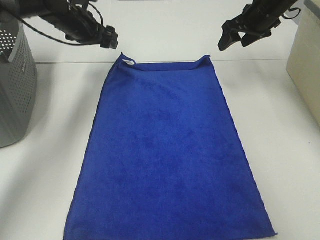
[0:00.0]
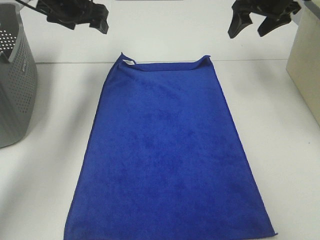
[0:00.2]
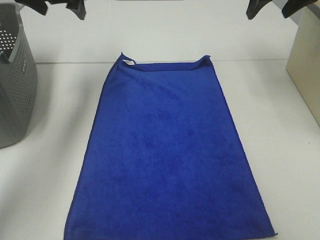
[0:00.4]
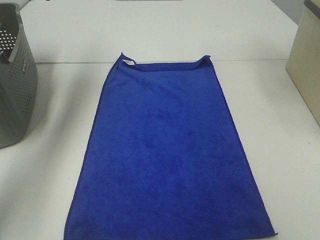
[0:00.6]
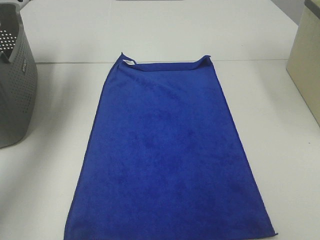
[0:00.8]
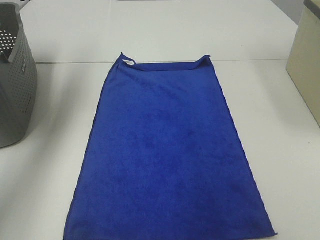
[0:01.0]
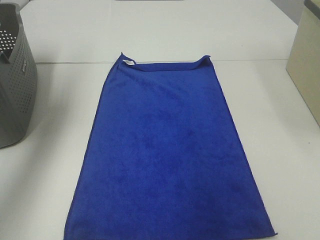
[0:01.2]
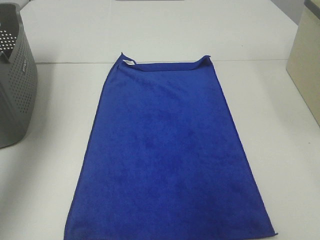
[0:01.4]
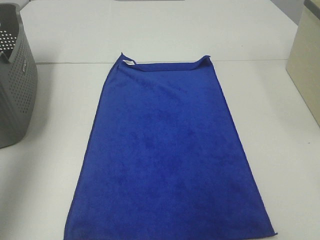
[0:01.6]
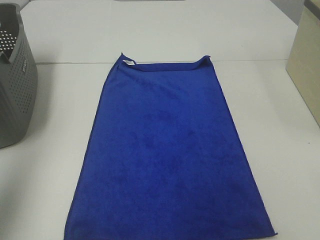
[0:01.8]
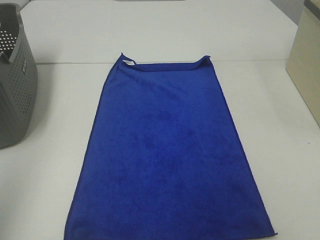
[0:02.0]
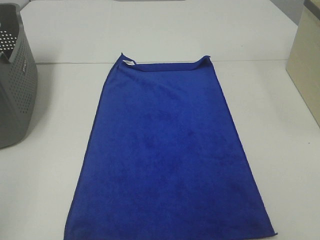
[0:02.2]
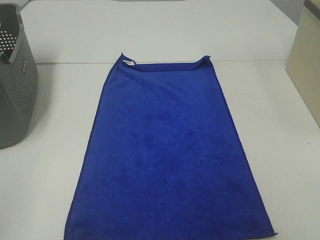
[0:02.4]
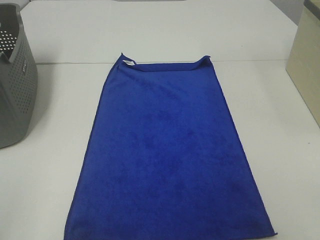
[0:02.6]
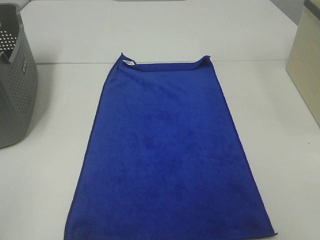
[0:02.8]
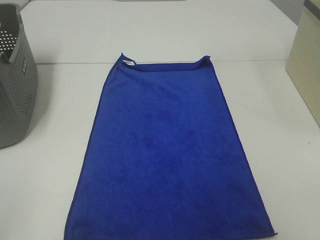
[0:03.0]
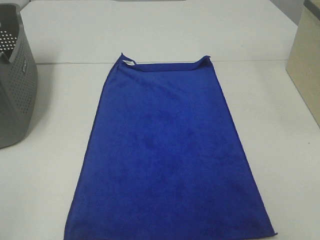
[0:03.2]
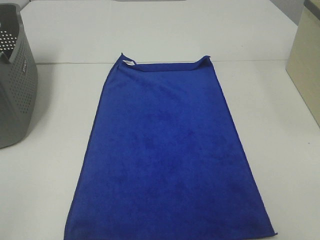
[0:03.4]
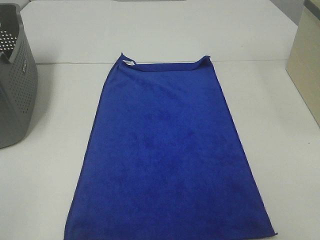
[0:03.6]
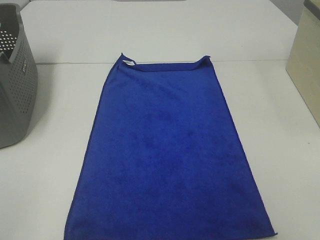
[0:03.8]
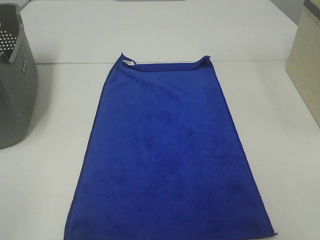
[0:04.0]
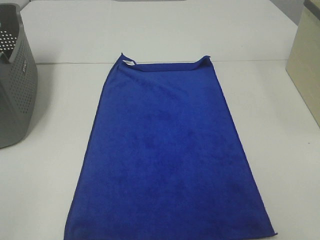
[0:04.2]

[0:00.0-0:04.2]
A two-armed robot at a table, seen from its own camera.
Task of the whole recording: Remove the towel and place it.
0.0 to 1.4 s: The right gripper shifts about 40 cm backward and upward. The left gripper is displaced backward, upward and to the left by some 35 cm.
1.4 to 2.8 s: The left gripper travels backward by approximately 30 cm.

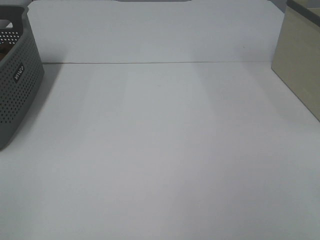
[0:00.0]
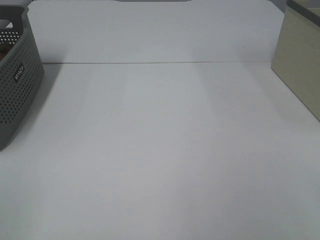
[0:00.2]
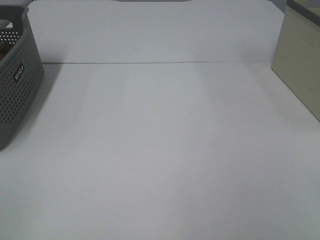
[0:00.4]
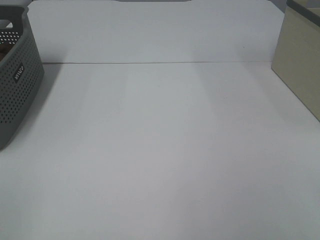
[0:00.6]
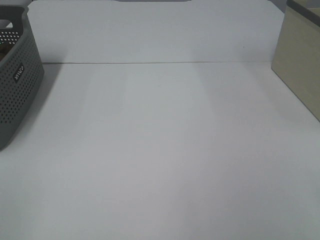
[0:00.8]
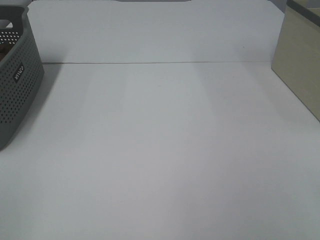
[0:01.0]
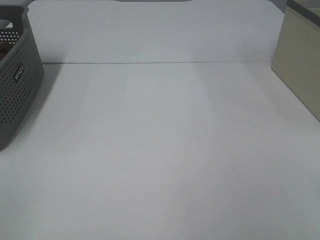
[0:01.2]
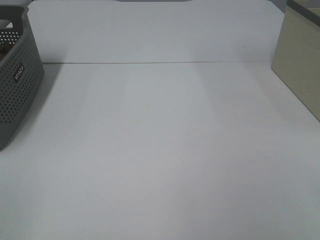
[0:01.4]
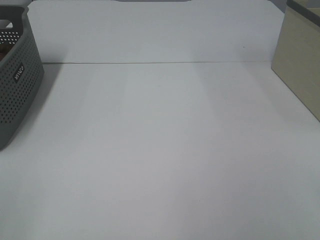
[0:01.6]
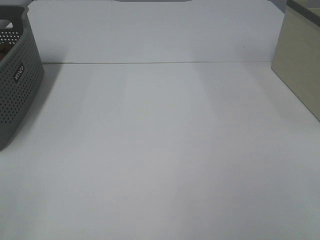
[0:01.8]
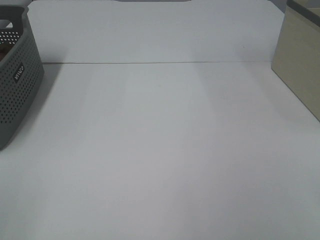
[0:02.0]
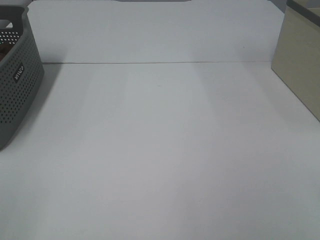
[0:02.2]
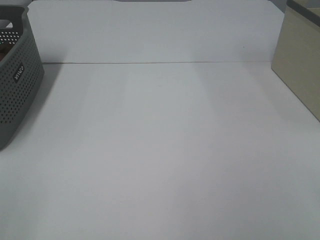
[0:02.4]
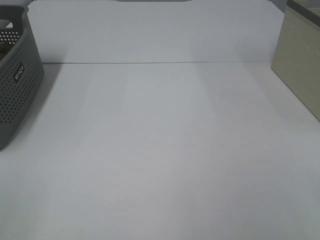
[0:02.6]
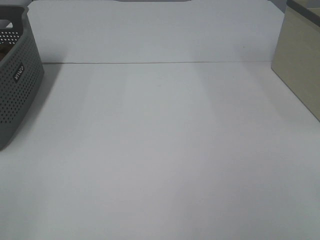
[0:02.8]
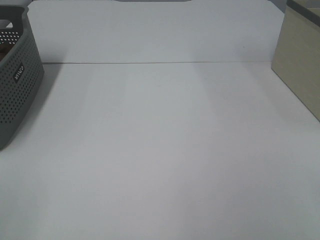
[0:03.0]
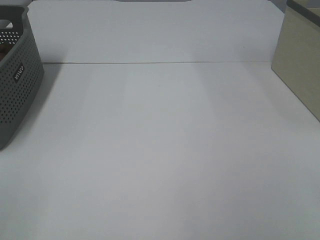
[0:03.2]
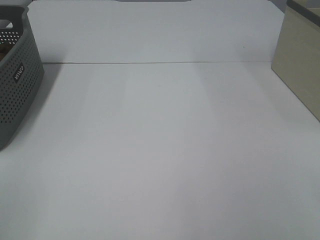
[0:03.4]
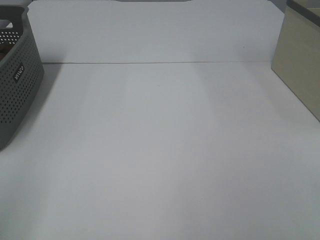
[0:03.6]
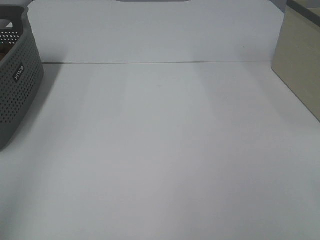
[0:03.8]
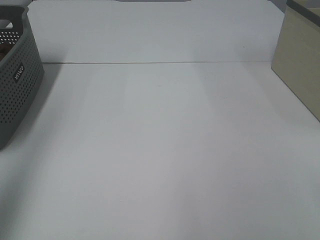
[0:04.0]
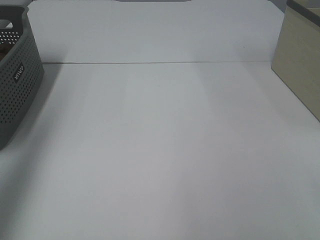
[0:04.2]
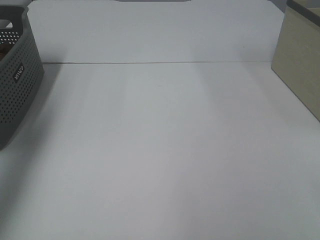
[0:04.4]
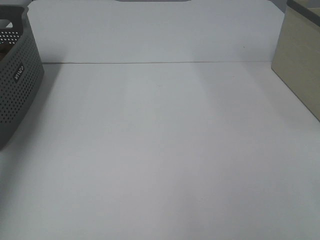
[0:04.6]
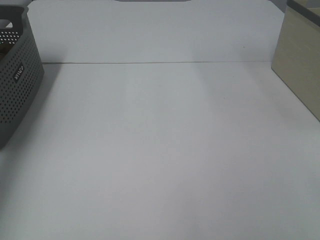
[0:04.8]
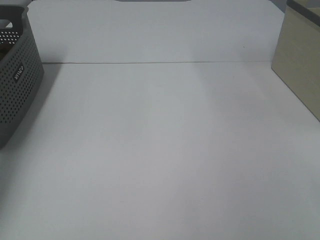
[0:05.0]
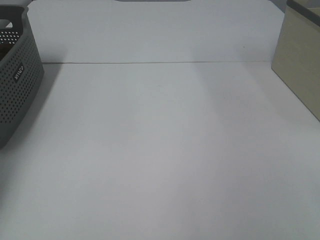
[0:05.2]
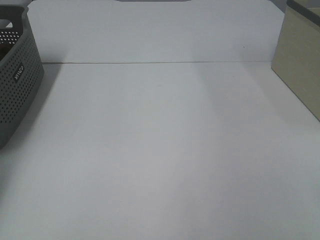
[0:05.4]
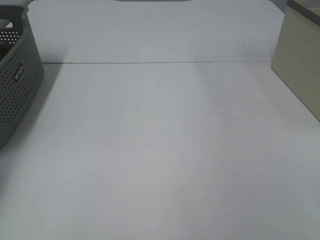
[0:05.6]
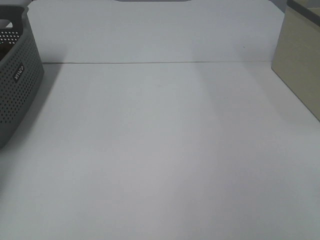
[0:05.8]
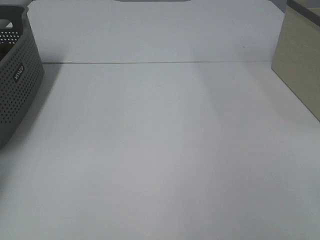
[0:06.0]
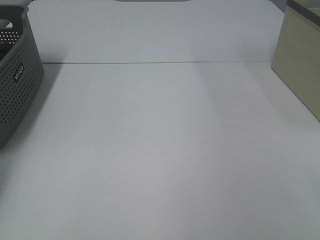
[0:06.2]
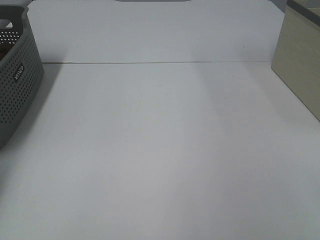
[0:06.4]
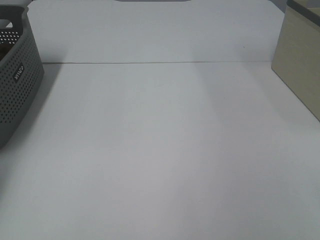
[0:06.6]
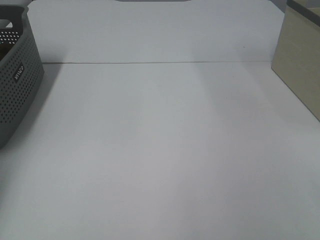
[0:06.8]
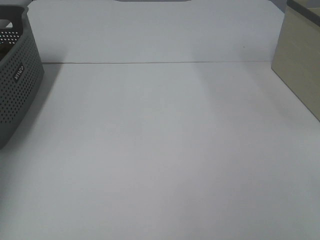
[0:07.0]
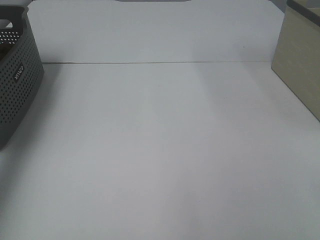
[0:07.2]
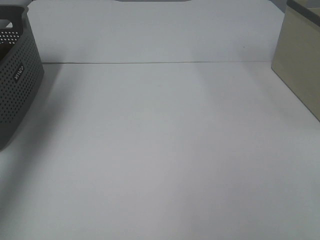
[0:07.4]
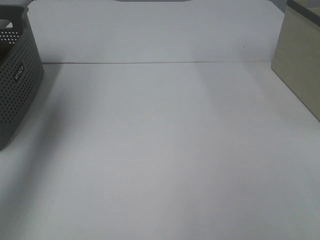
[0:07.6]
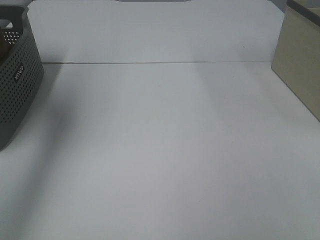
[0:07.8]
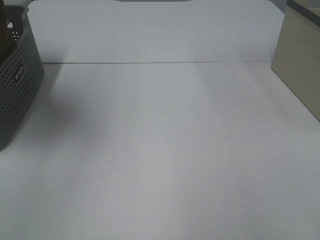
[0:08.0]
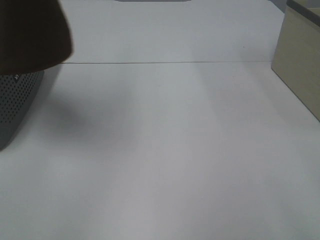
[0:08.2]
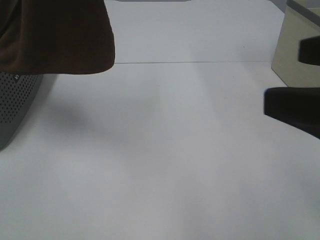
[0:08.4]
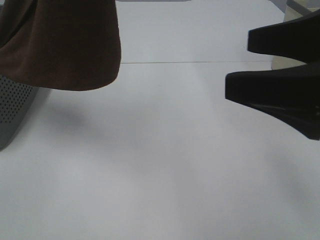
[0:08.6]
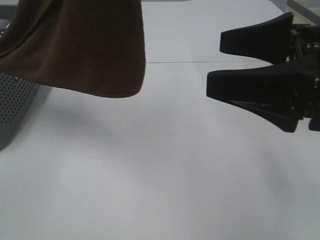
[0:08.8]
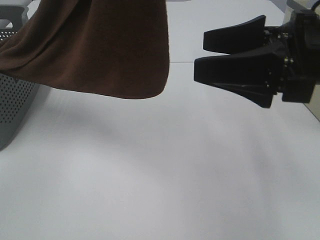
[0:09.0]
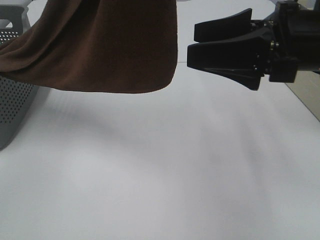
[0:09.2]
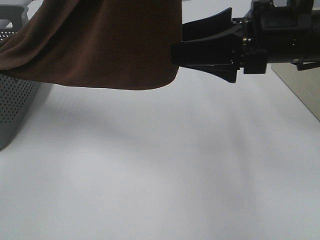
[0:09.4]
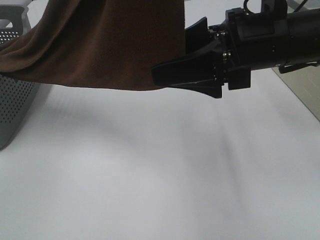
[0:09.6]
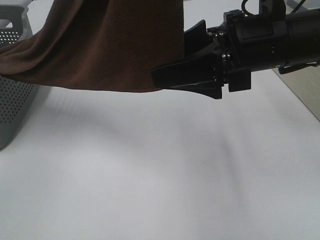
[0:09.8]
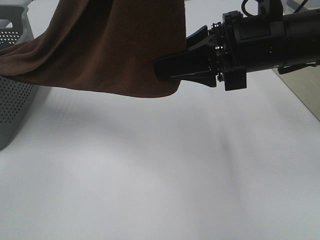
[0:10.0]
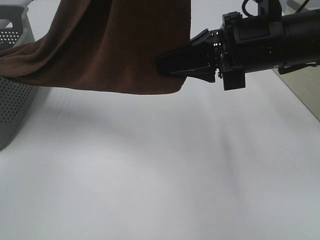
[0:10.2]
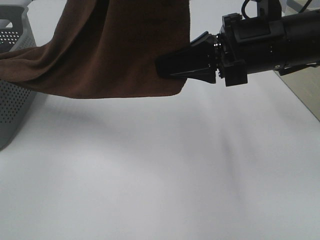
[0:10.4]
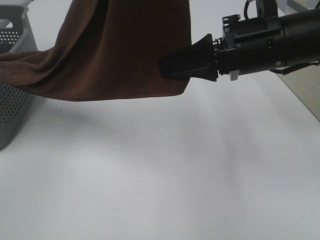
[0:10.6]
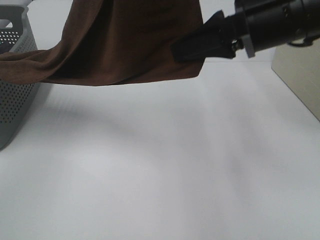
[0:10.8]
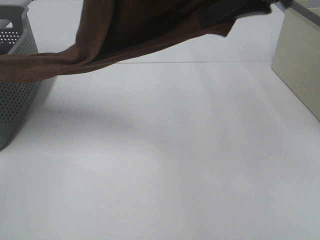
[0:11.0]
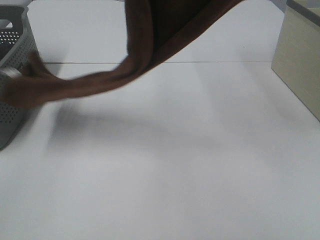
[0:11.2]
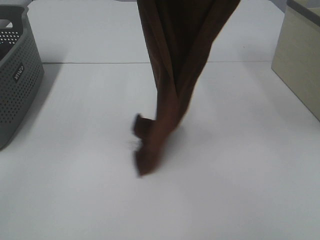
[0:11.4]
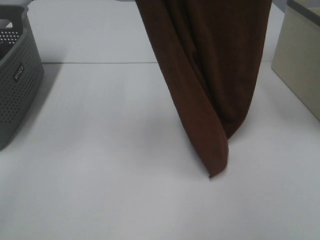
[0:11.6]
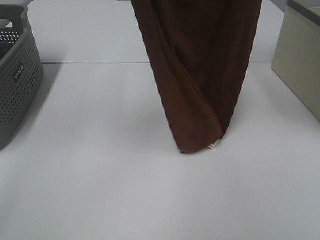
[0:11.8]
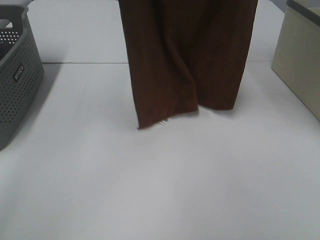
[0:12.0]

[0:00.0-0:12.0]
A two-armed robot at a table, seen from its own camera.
Task of the whole recording: Remove the towel and place it.
Step, 7.4 to 10.6 s: Right hand: grab a corner of the brown towel and straighten it.
0.0 to 3.0 s: Neither gripper changes place.
3.0 to 4.4 s: The left gripper moves forward, about 30 cm.
4.4 to 6.0 s: The left gripper heads forward, downward and to the left, covering some 25 cm, and closes.
6.0 to 7.6 s: The left gripper heads upward, to the right and backward, covering approximately 30 cm.
7.6 to 9.0 s: The right gripper travels forward and to the left by about 25 cm. The left gripper heads to the right and backward, covering approximately 25 cm.
9.0 to 10.4 s: The right gripper travels to the left by roughly 5 cm, and closes its fingers.
10.4 to 12.0 s: The right gripper goes about 30 cm upward; the left gripper moves forward, approximately 15 cm.

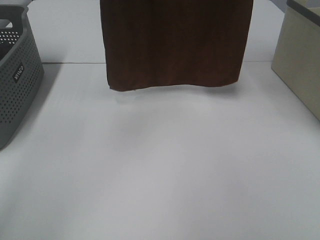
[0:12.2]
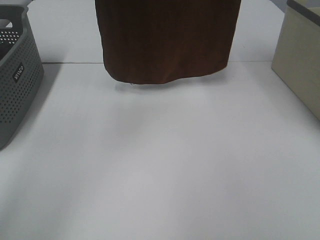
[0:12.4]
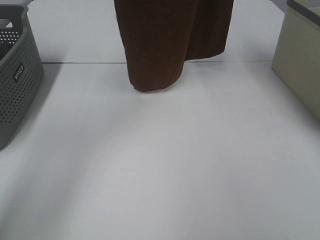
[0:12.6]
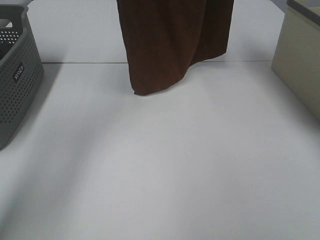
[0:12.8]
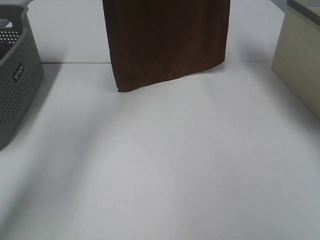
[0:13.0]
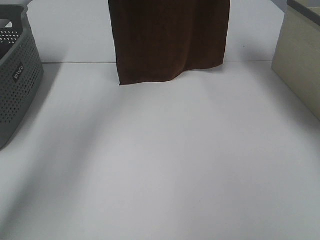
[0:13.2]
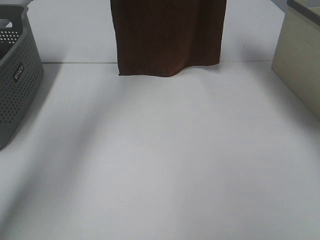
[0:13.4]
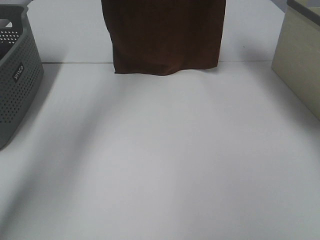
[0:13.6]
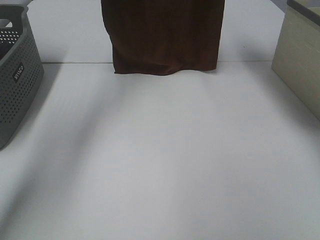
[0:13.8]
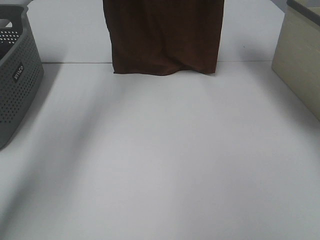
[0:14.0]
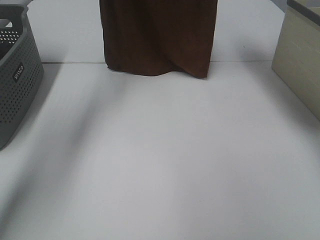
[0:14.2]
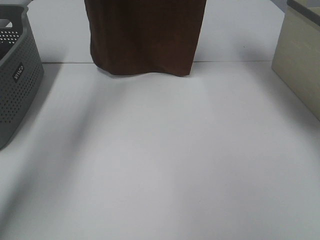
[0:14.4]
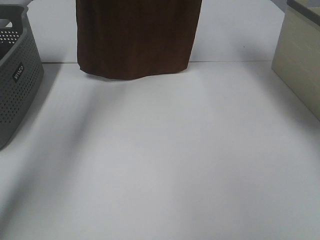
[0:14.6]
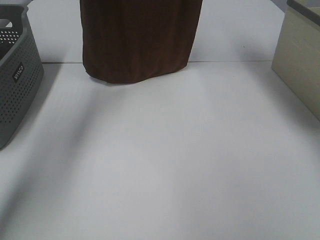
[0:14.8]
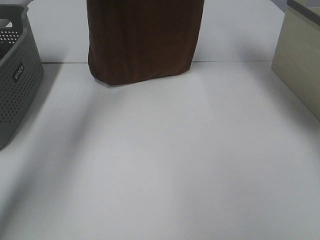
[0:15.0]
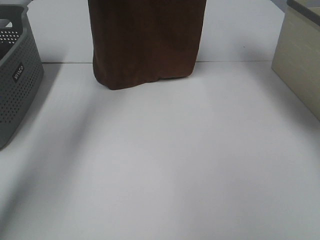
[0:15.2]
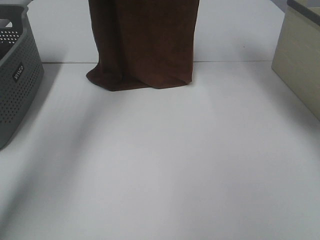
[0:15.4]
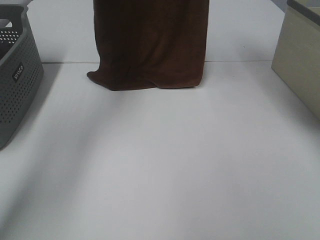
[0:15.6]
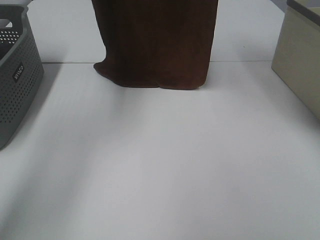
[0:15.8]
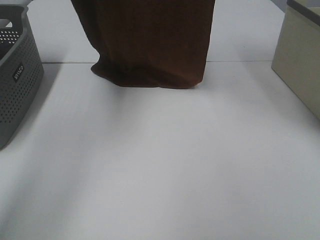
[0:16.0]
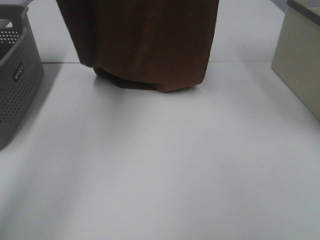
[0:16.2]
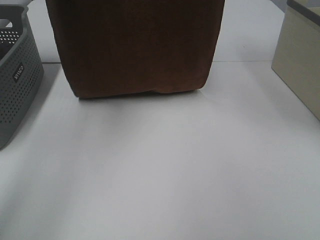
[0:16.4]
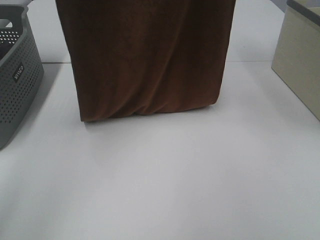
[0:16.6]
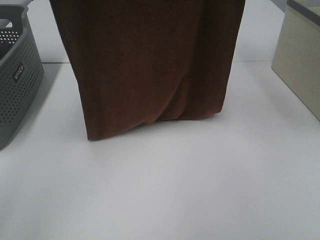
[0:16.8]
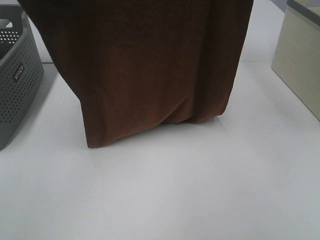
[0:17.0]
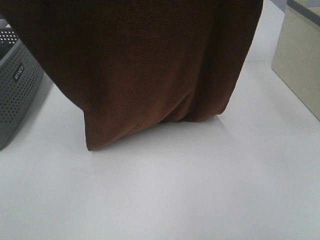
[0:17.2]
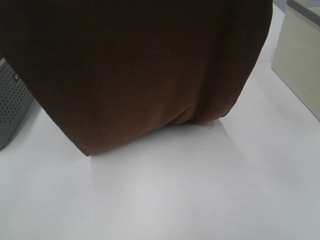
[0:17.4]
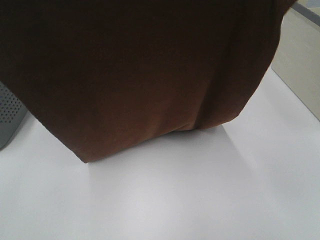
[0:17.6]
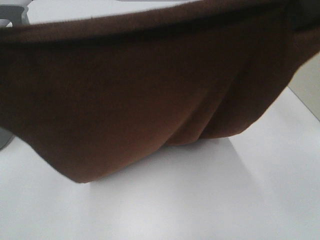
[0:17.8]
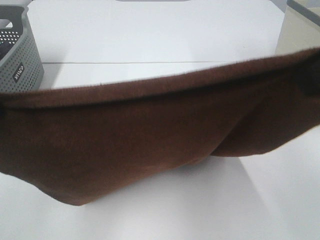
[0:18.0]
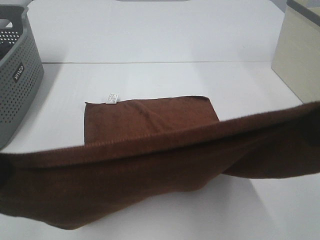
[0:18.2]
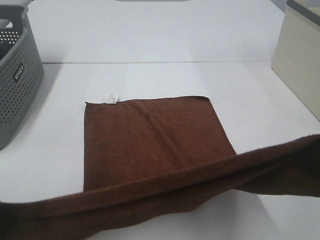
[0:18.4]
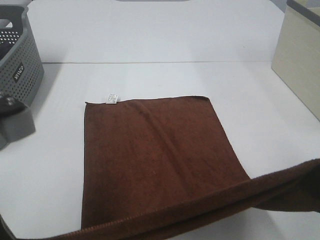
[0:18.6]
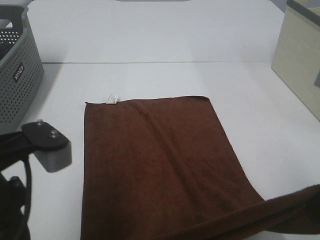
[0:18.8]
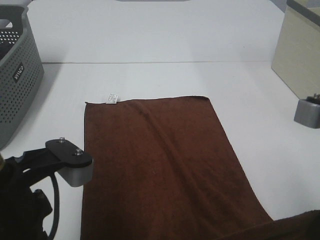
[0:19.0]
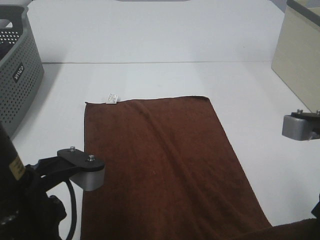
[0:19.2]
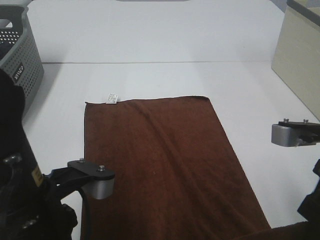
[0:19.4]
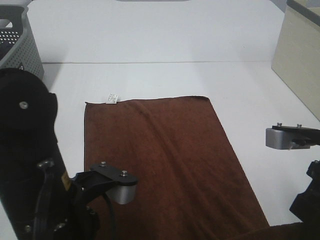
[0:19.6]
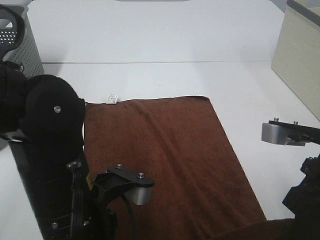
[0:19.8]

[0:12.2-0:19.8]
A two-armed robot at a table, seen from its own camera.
Task of the whole recording: Remove the towel and place it.
Step, 12.2 to 16.6 s: Left hand: spread the brown towel flat on the table.
Step, 12.2 to 16.6 s: Right hand: spread the brown towel flat on the table.
12.2 to 13.8 s: Both grippers move forward and downward, about 15 cm.
13.8 to 15.2 s: The grippers make only small movements.
15.2 to 16.8 s: The two grippers go roughly 20 cm backward.
16.8 to 18.2 s: Both grippers travel together backward and downward, some 25 cm.
18.2 to 19.8 s: The right gripper is displaced downward by about 15 cm. The left gripper moves downward and to the right, approximately 20 cm.
